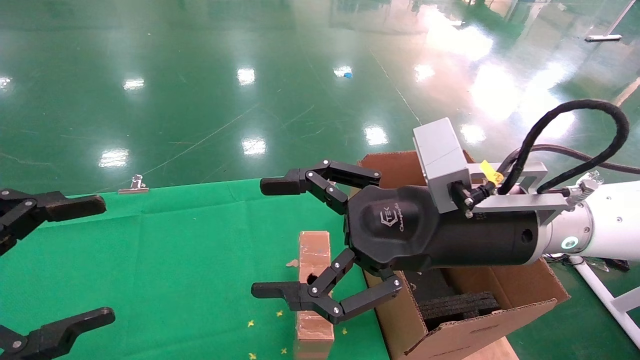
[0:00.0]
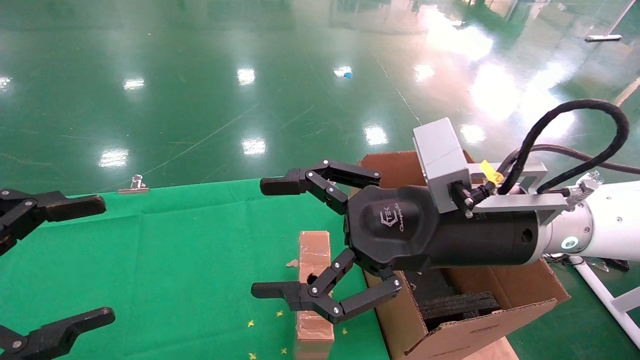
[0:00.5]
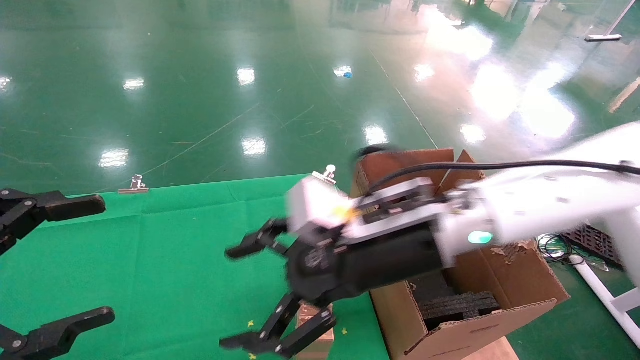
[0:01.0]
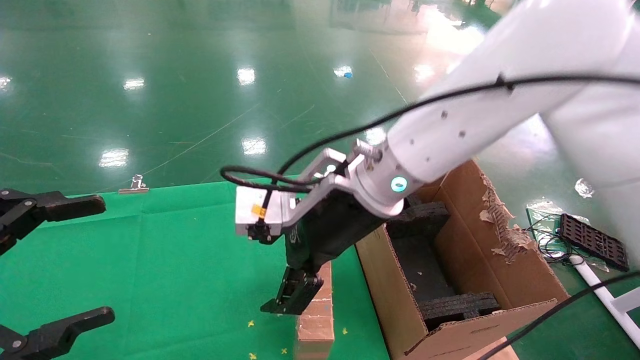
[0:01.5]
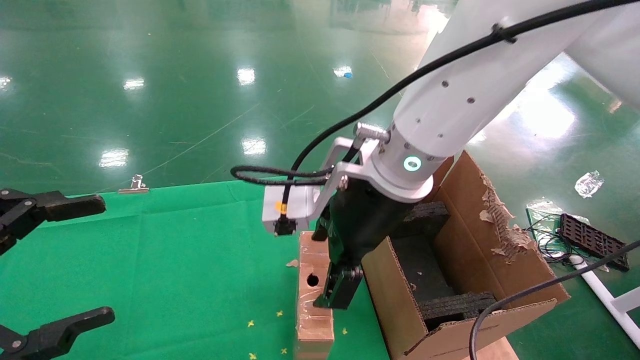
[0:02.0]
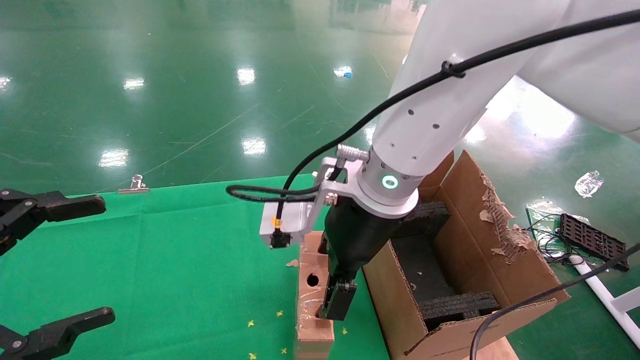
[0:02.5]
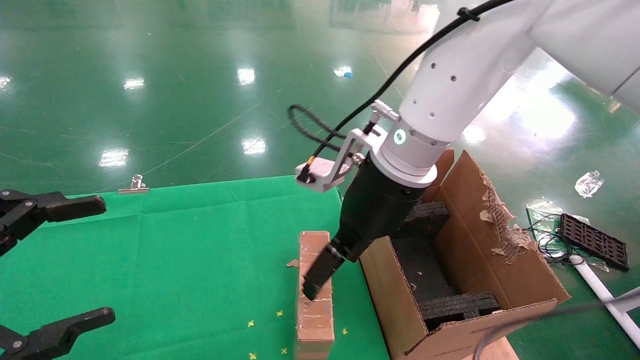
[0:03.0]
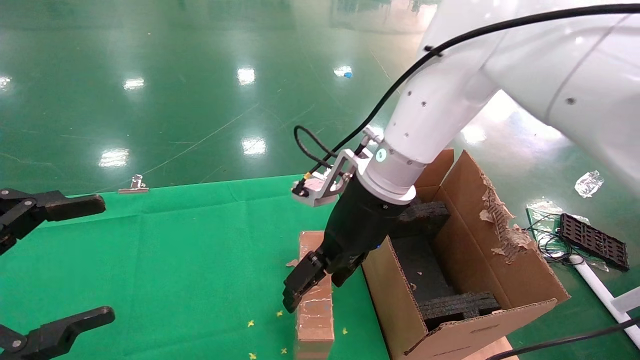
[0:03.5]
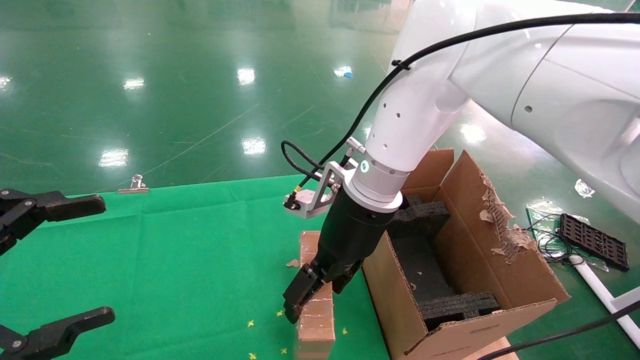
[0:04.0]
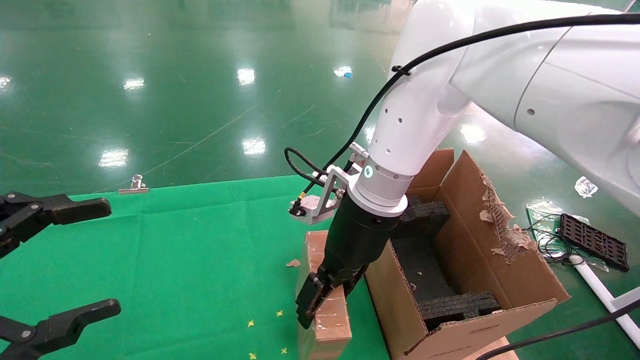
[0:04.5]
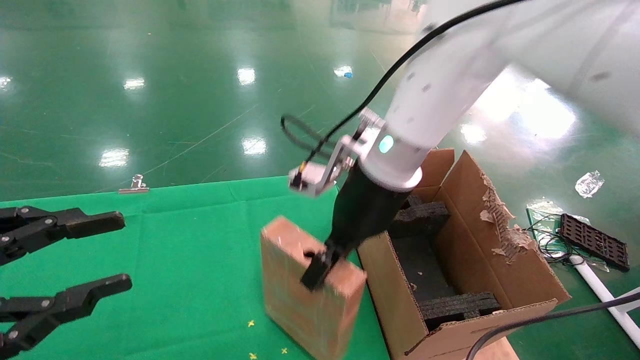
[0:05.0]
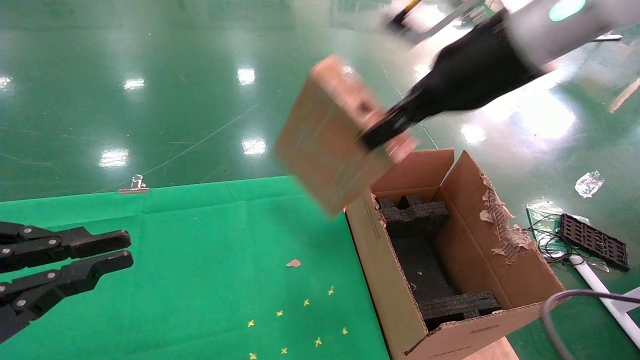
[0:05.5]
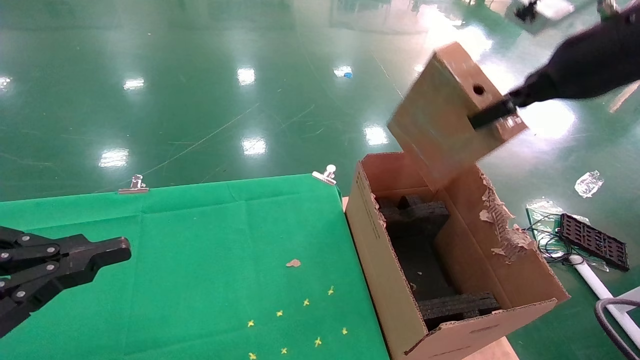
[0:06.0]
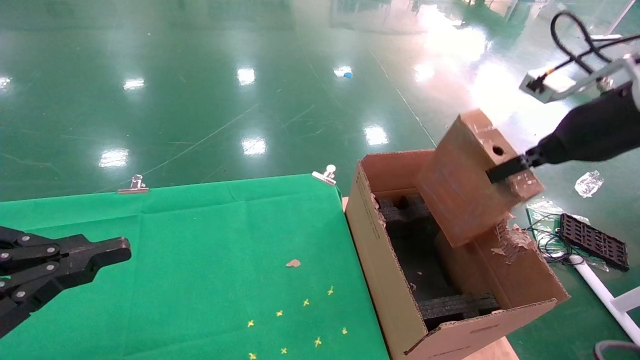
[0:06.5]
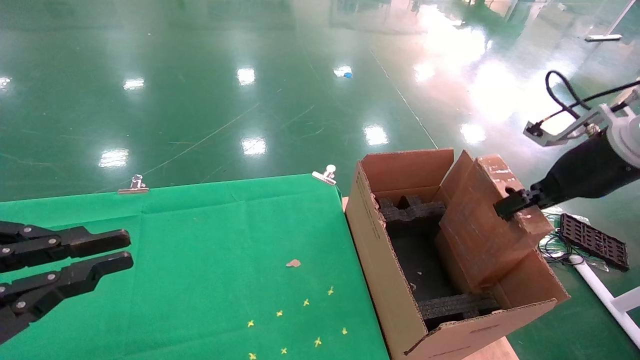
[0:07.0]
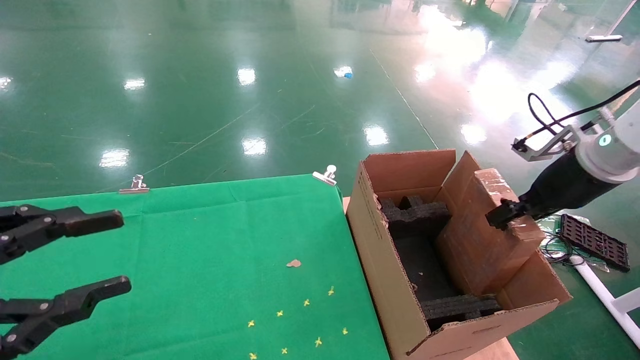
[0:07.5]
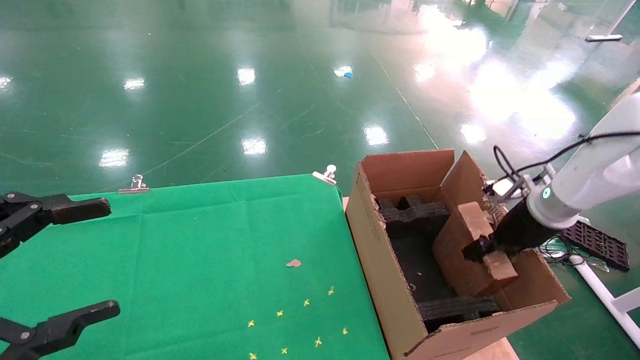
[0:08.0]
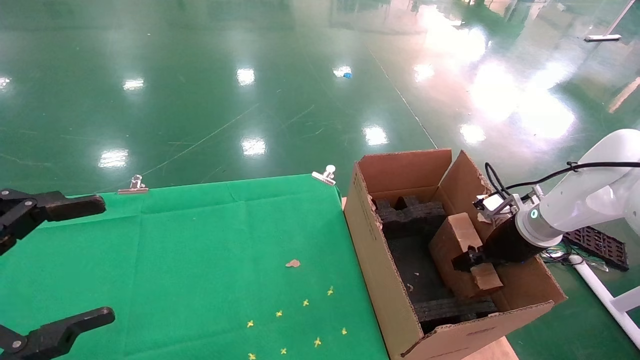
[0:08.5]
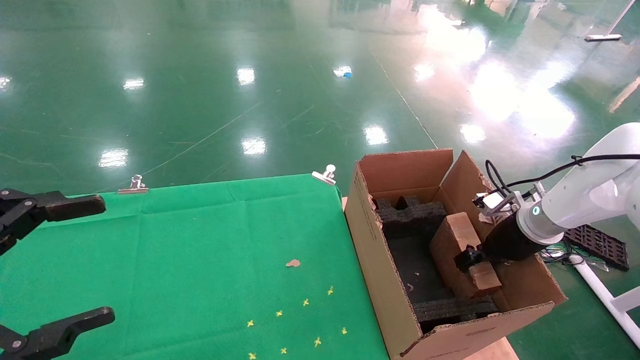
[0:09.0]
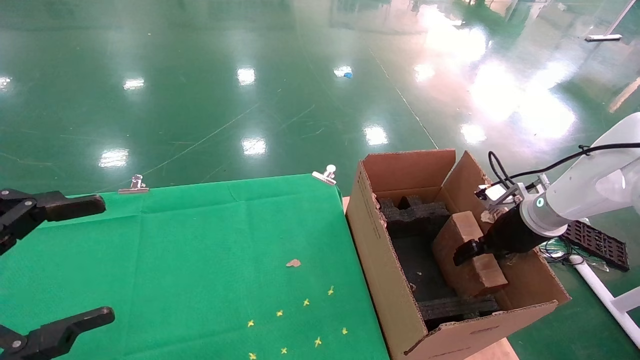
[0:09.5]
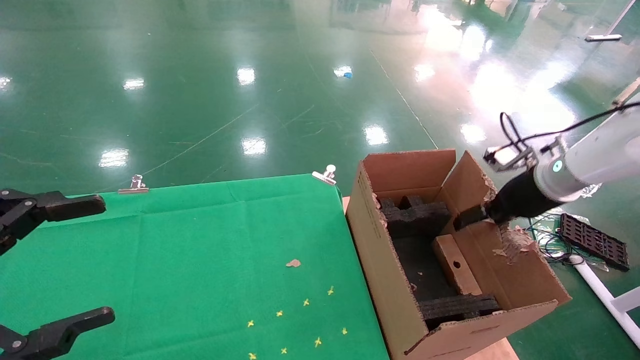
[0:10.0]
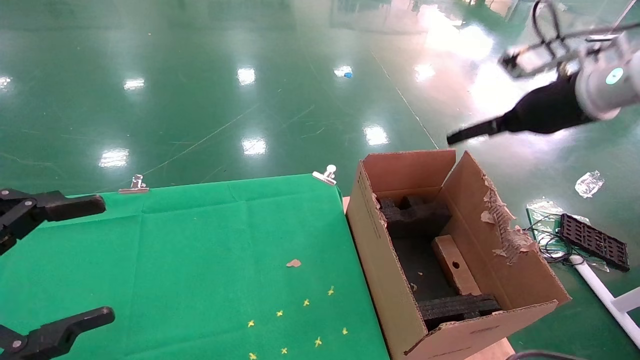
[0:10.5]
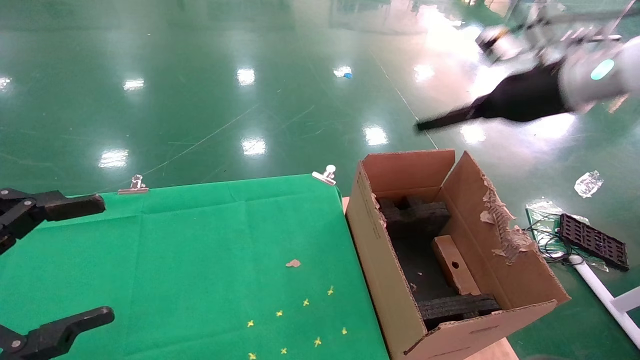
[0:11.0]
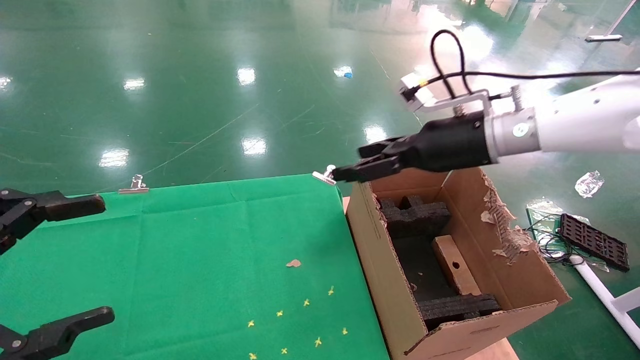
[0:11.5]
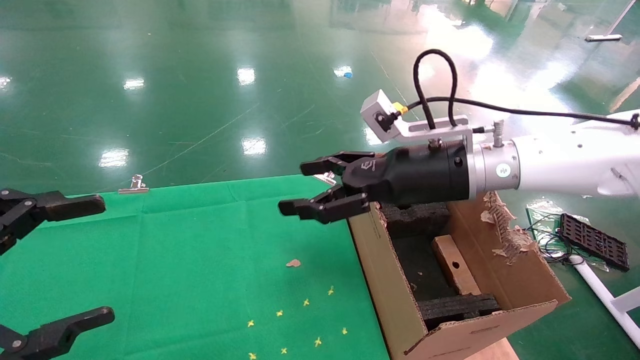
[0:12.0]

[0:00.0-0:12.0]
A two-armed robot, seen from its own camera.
Task of the whole recording: using a robotic arm to pick up a cardboard box and palace it the carton.
Step, 0:01.0 to 0:05.0: Pick up the mouse and the power cord paper box.
Step, 0:05.5 to 0:10.0: Place the mouse and the power cord paper box into the container.
0:00.0 to 0:02.0: The right gripper is displaced to the left and forward by about 10 cm.
0:02.0 to 0:04.0: The right gripper moves forward, about 5 cm.
0:04.0 to 0:06.0: The right gripper shifts some 30 cm to the right and upward, and closes up. The left gripper closes.
0:06.0 to 0:08.0: The left gripper opens its fingers. Meanwhile the right gripper shifts roughly 25 cm downward and forward.
0:08.0 to 0:10.0: The right gripper opens.
0:10.0 to 0:12.0: The right gripper is displaced to the left by approximately 20 cm.

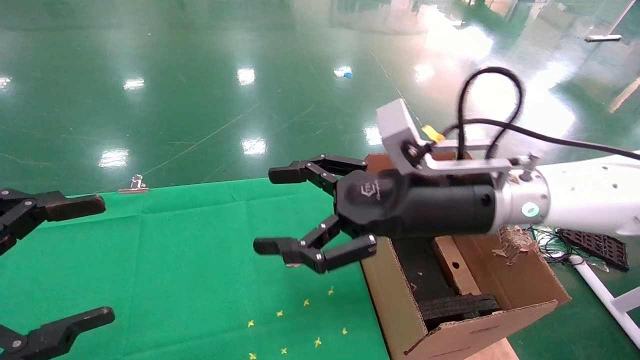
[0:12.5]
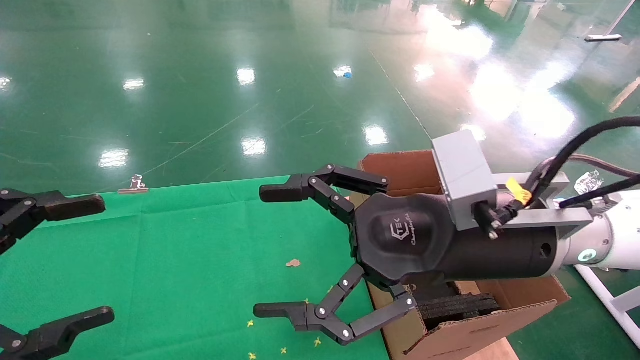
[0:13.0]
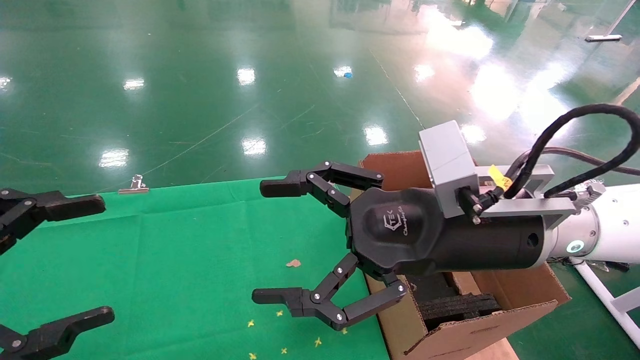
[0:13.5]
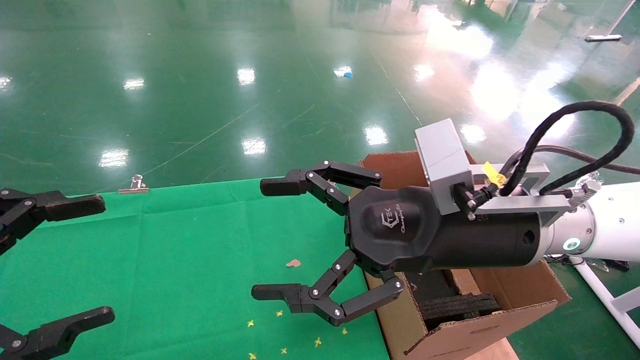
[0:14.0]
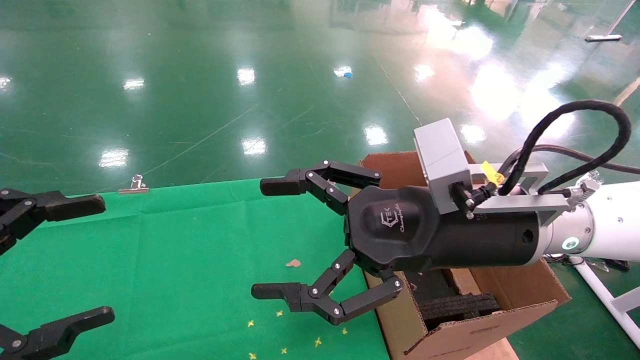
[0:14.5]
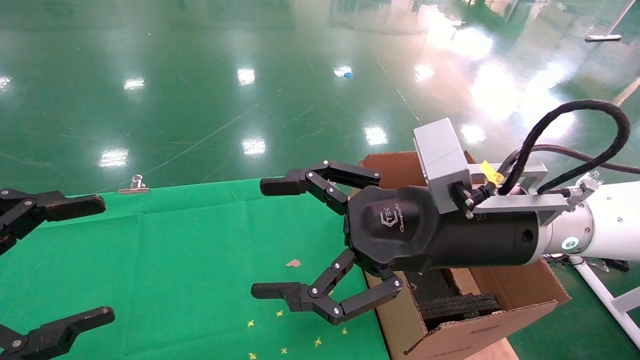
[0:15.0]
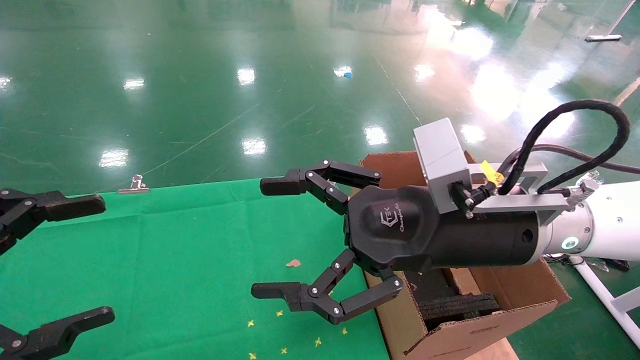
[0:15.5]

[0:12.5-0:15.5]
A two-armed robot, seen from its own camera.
Task of the whole recording: using a robotic arm to pick up a cardboard box and palace it the carton.
0:12.5 to 0:14.0: There are only small adjustments of the grippers.
0:14.0 to 0:15.5: Both grippers stay about where they are.
